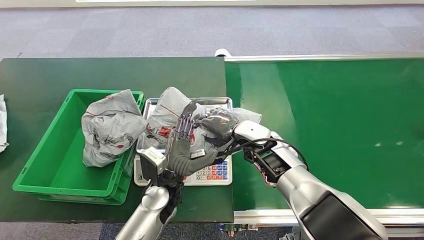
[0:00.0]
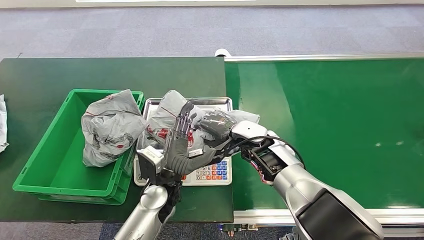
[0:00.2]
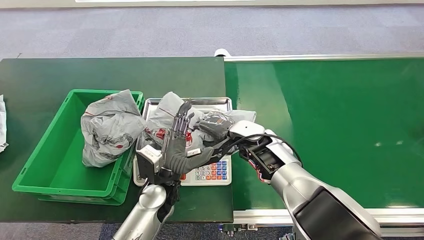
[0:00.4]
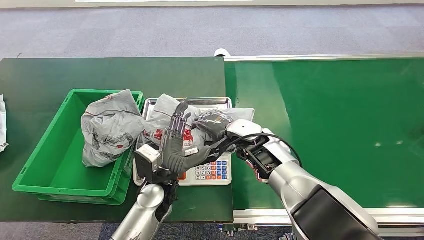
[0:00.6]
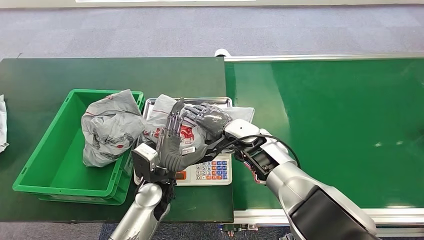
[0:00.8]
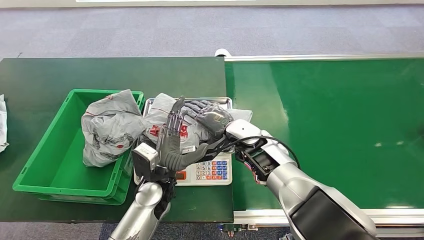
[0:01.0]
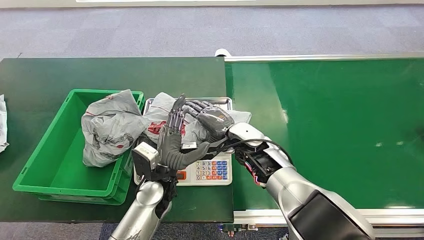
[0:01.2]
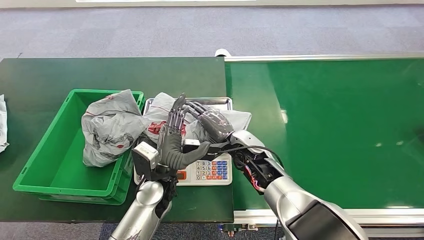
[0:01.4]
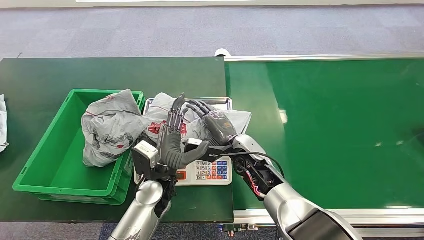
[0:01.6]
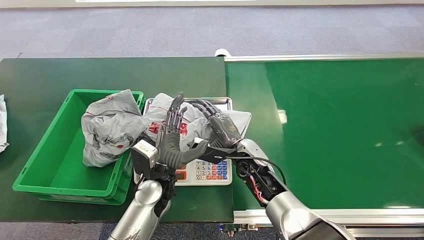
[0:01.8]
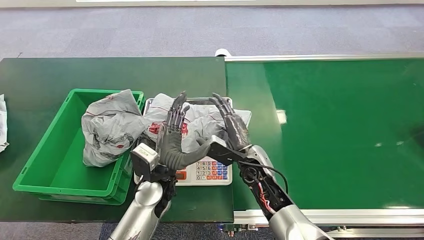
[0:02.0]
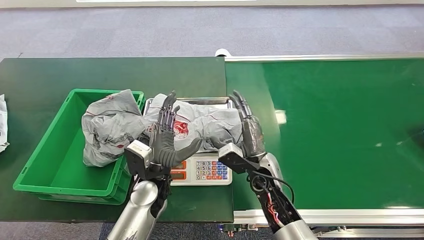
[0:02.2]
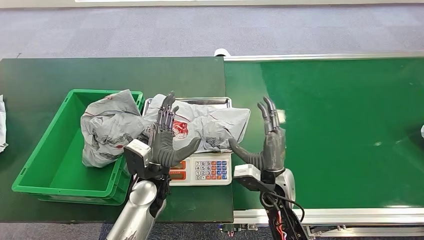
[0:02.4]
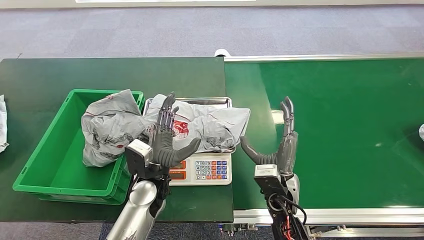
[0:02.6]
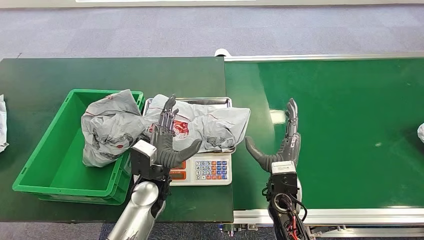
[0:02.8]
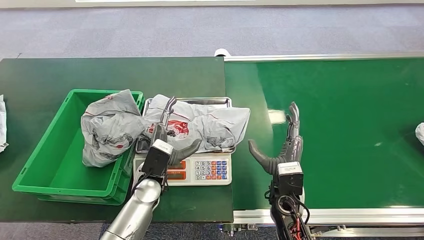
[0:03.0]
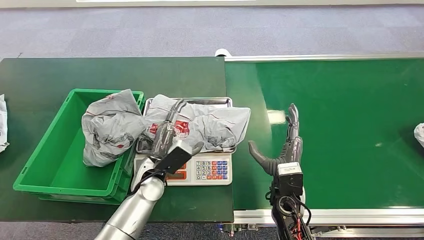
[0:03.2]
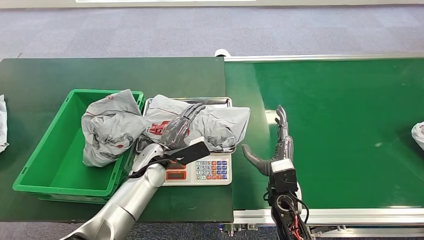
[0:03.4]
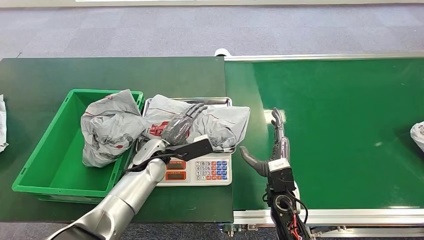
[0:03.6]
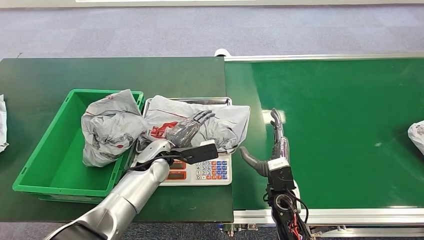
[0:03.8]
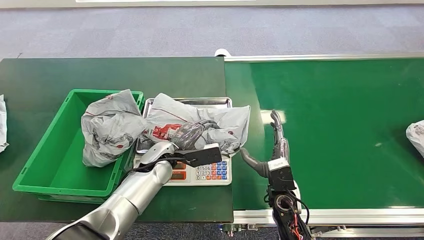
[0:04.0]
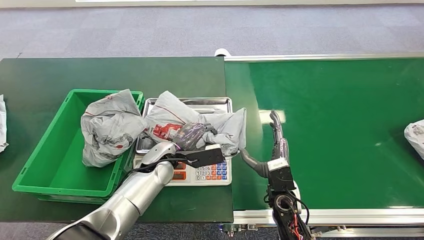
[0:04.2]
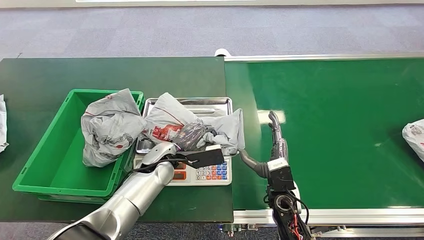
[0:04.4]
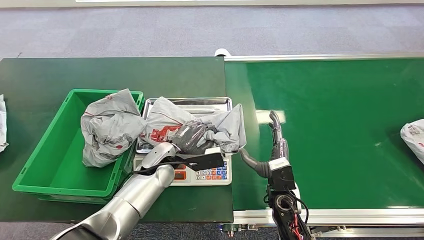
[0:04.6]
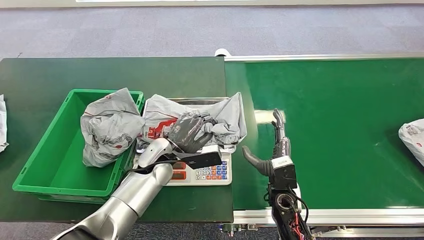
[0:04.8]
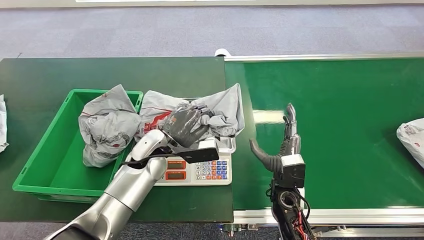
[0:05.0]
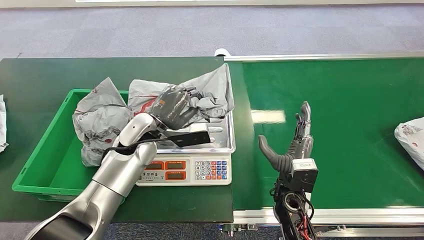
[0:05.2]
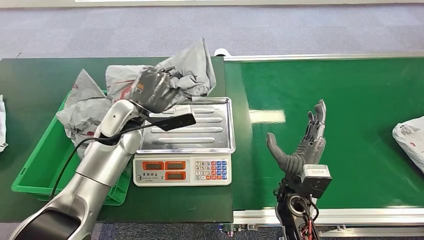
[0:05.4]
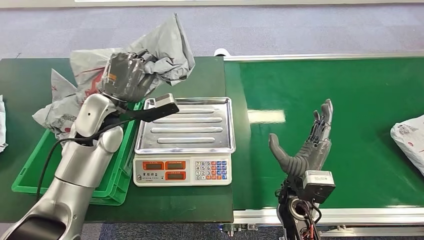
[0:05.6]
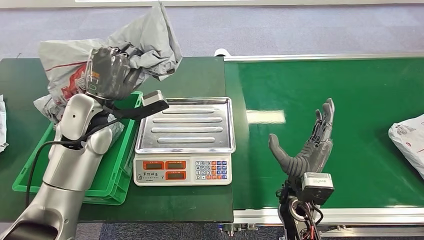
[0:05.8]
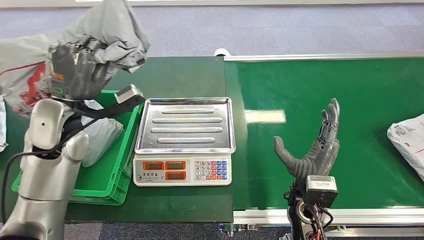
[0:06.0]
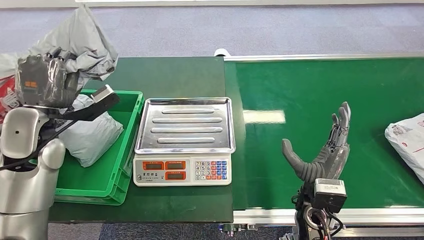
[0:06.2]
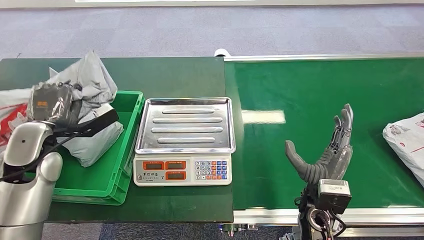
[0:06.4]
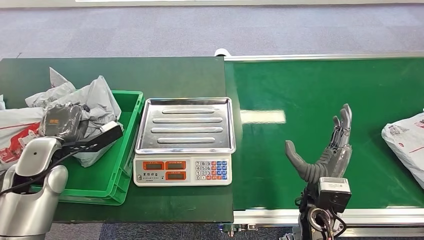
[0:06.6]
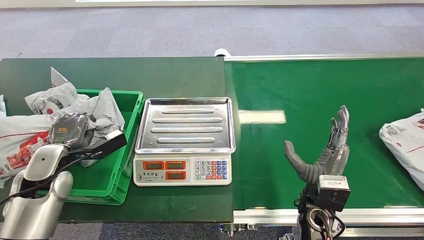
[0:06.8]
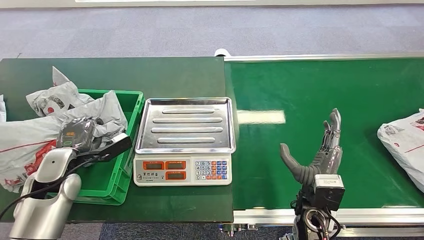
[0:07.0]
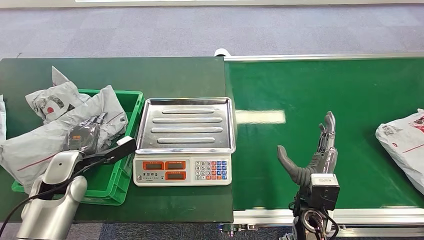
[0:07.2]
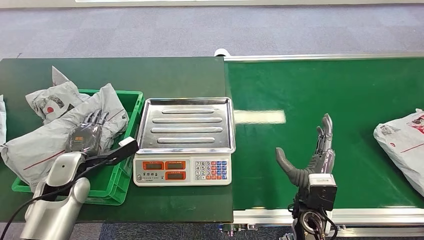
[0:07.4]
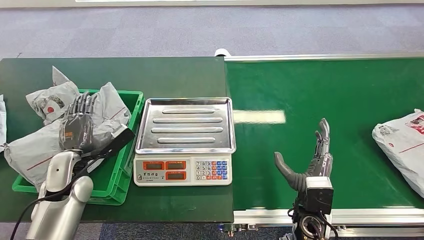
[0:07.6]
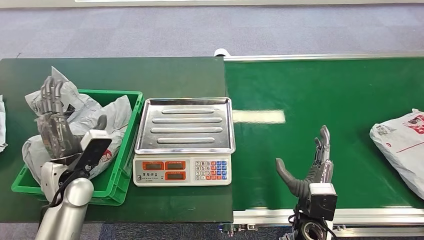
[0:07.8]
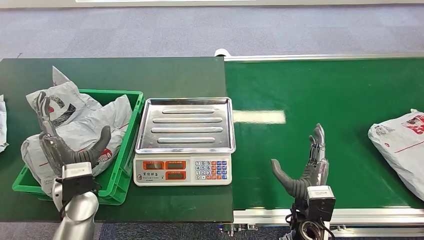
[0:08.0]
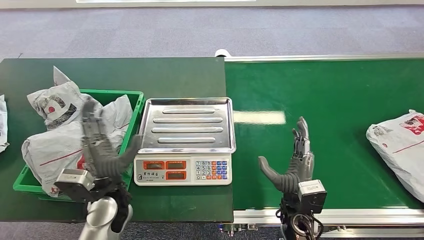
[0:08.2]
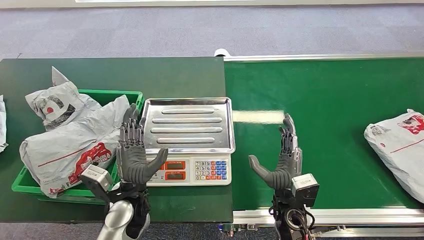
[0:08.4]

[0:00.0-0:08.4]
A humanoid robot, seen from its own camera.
Step, 0:03.6 to 0:05.2: Pick up the package from the inbound machine.
Step, 0:06.2 to 0:08.4: Place the package into the parcel locker.
0:01.4 to 0:02.8: The right hand moves backward and to the right, approximately 10 cm.
0:02.8 to 0:04.2: The left hand is displaced forward by about 5 cm.

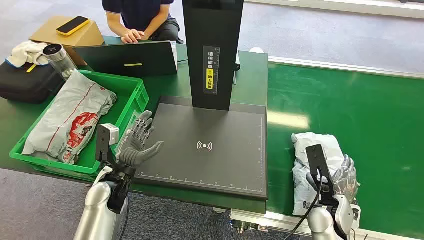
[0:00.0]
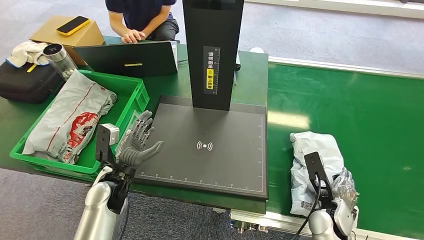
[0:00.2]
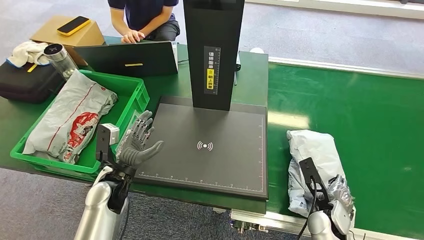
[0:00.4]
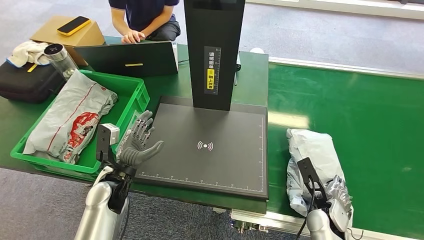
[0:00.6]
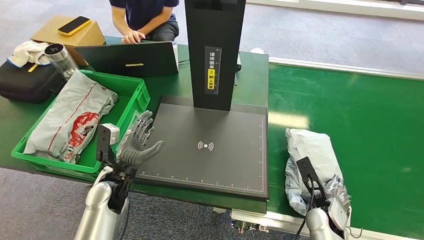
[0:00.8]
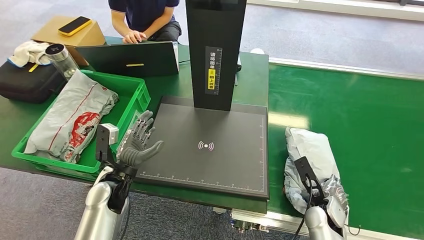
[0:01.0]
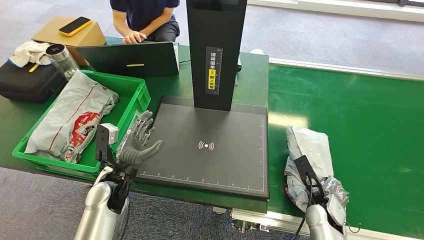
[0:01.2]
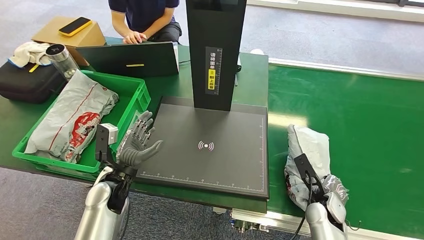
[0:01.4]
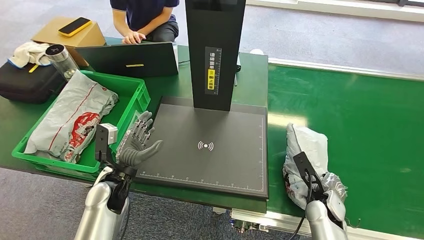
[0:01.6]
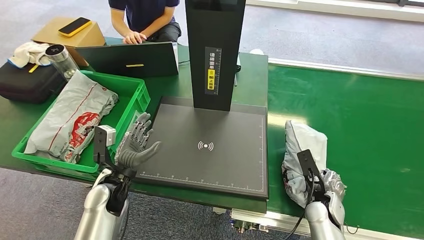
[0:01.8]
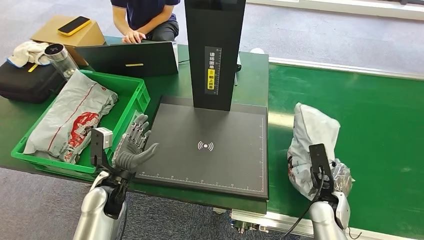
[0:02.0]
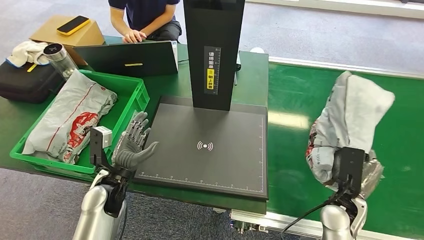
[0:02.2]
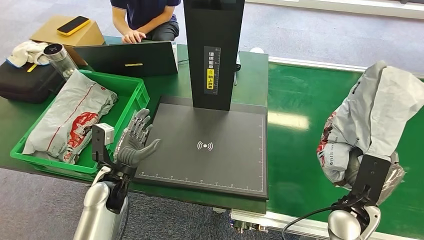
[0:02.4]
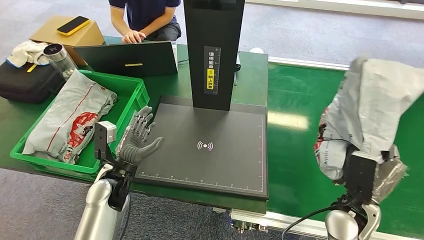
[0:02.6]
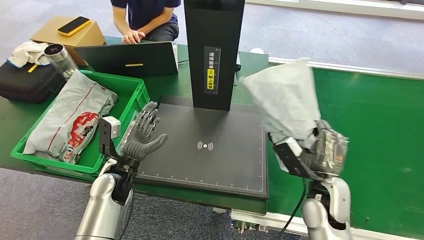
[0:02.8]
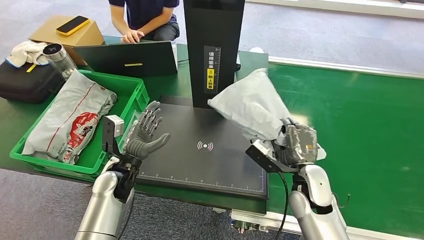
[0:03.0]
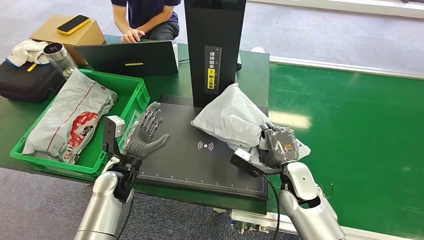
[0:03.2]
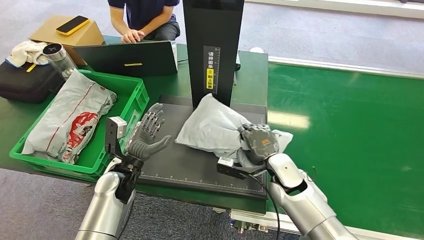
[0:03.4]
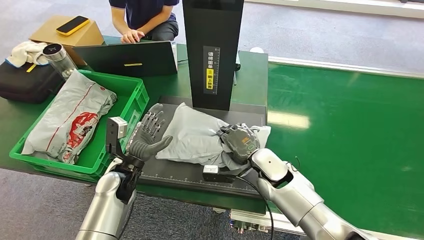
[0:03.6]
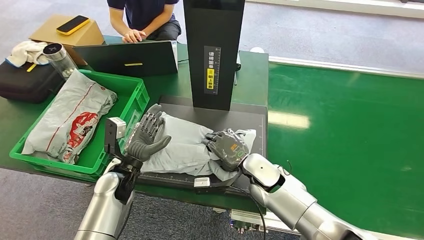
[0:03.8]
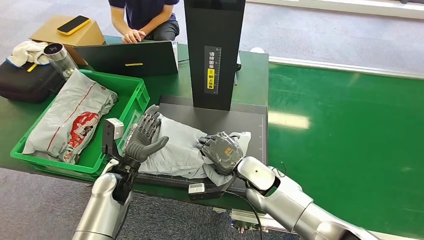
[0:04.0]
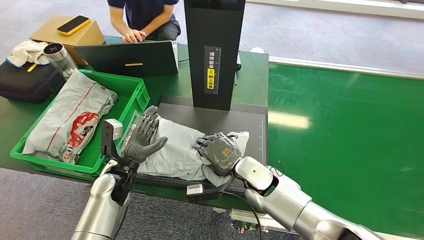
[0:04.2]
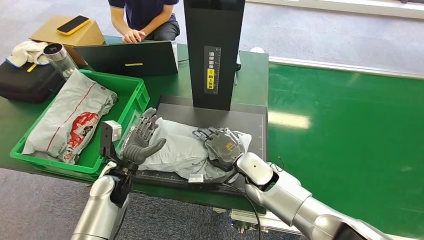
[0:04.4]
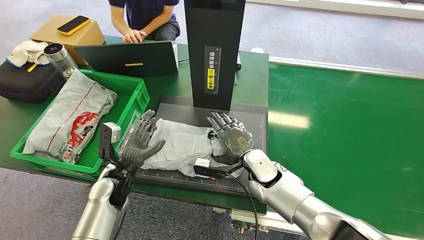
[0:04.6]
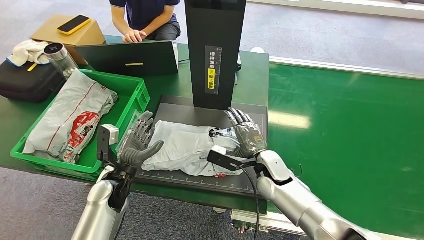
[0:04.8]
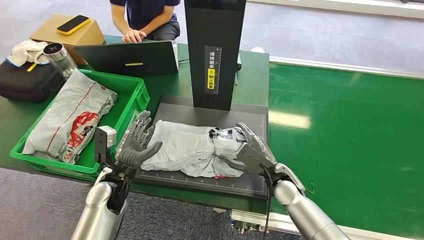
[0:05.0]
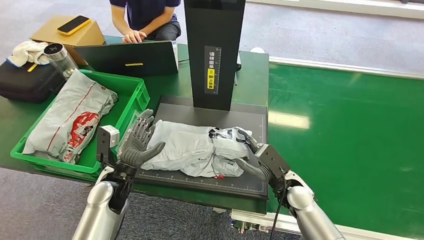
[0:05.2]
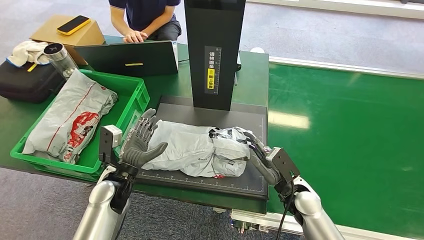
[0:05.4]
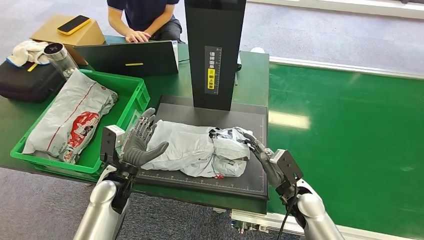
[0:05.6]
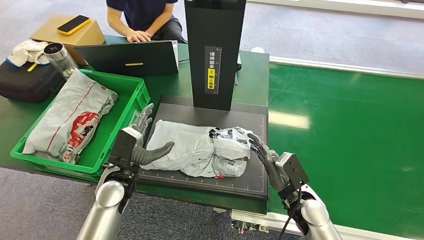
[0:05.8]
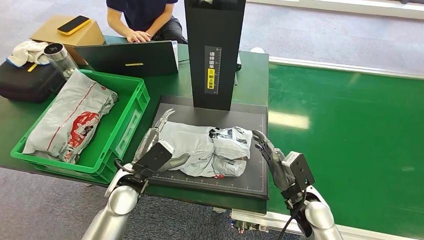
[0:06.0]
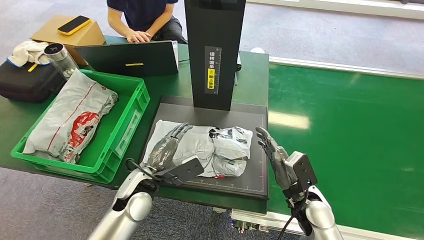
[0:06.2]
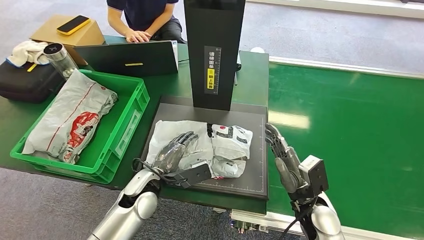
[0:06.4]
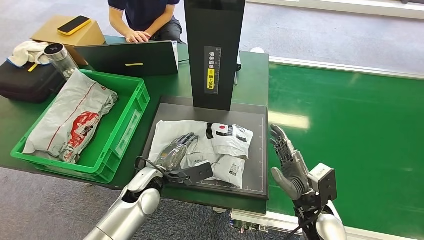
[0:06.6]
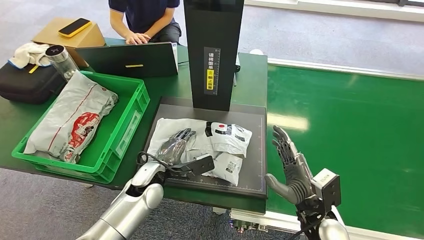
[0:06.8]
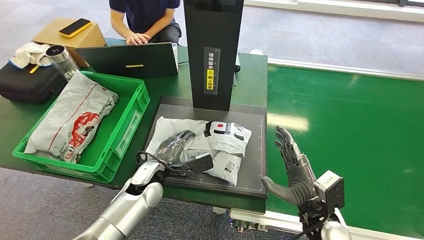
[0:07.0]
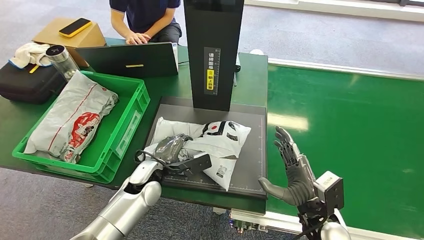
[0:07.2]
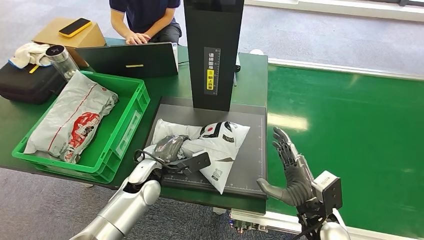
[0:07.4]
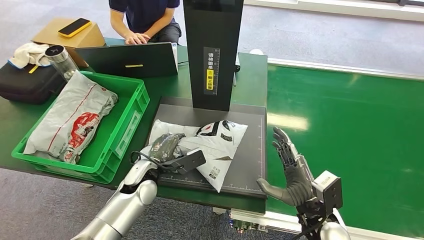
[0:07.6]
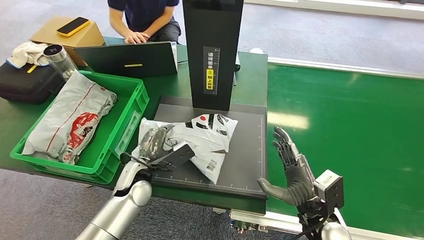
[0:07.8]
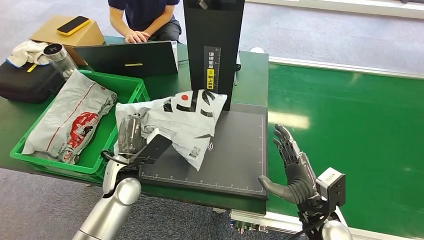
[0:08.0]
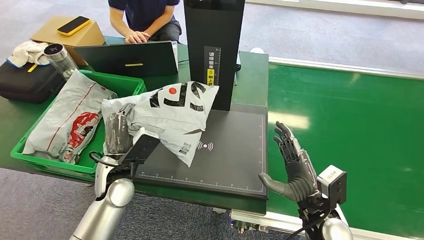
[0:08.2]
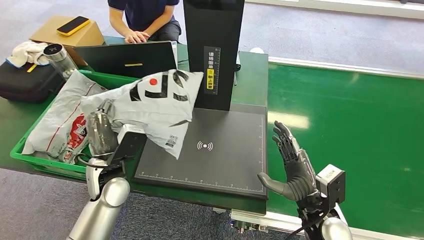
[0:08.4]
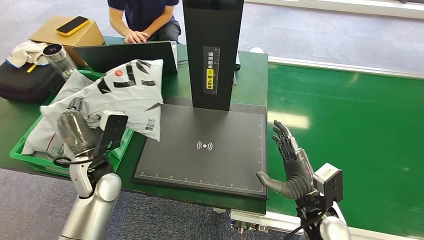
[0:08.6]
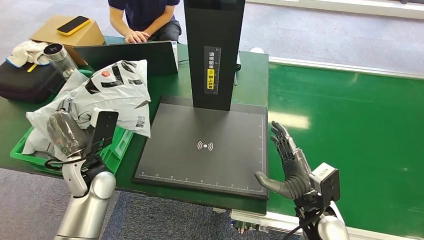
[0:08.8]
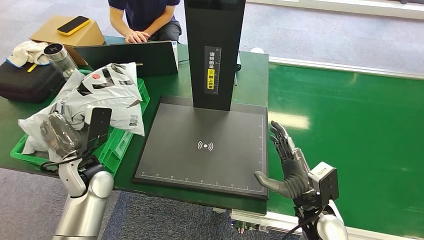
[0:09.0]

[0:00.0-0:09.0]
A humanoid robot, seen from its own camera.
Step, 0:00.0 to 0:02.4: Pick up the package from the conveyor belt.
Step, 0:02.6 to 0:05.4: Place the package onto the inbound machine.
Step, 0:05.6 to 0:08.2: Pick up the package from the inbound machine.
0:04.4 to 0:06.0: The left hand changes place by approximately 5 cm. Meanwhile the right hand heads to the right, backward and downward, covering approximately 15 cm.
